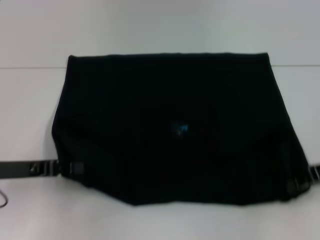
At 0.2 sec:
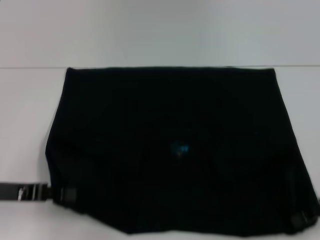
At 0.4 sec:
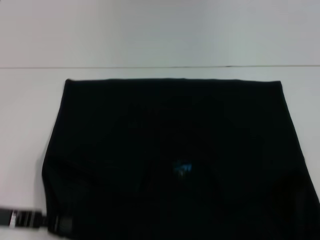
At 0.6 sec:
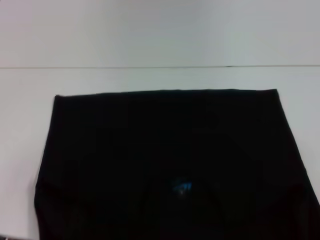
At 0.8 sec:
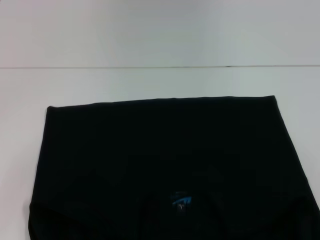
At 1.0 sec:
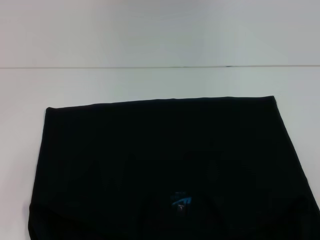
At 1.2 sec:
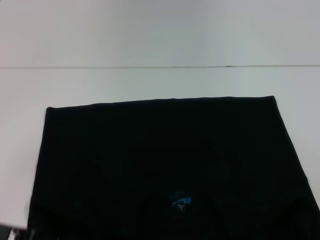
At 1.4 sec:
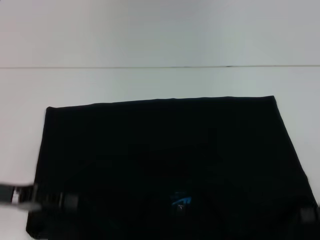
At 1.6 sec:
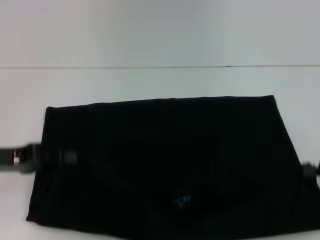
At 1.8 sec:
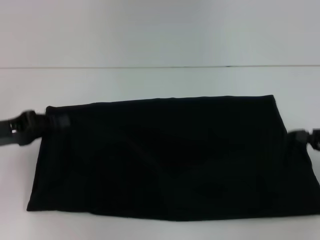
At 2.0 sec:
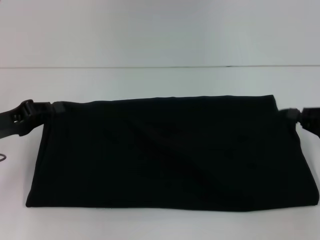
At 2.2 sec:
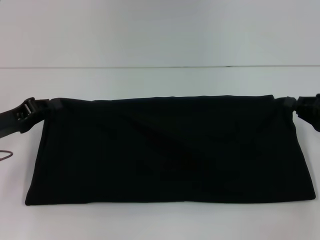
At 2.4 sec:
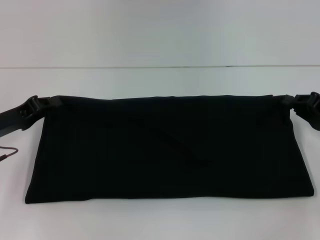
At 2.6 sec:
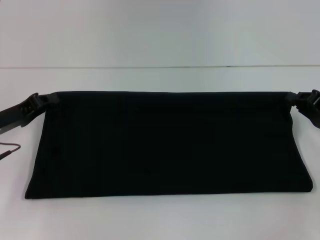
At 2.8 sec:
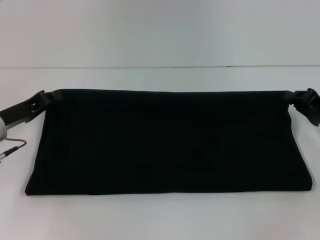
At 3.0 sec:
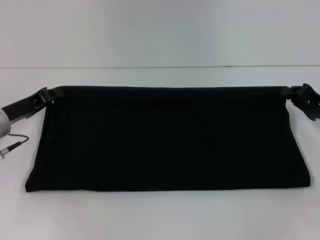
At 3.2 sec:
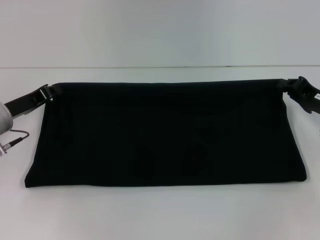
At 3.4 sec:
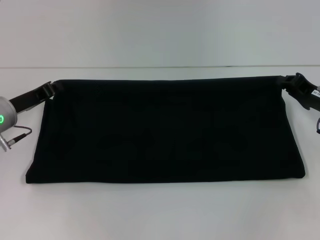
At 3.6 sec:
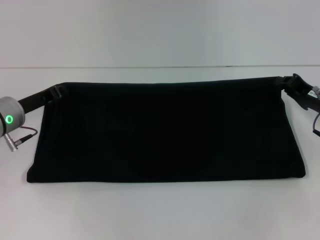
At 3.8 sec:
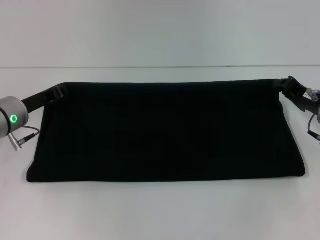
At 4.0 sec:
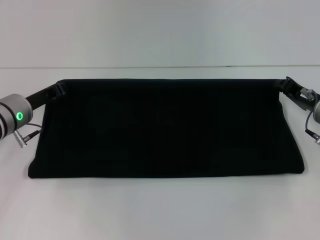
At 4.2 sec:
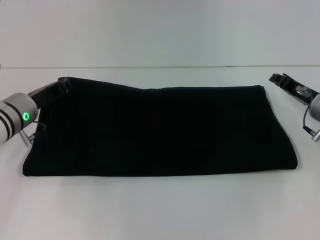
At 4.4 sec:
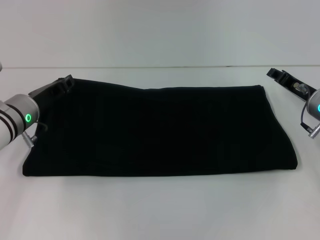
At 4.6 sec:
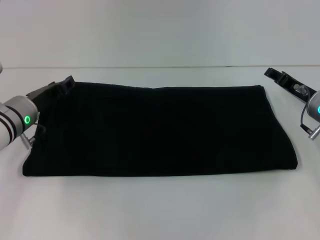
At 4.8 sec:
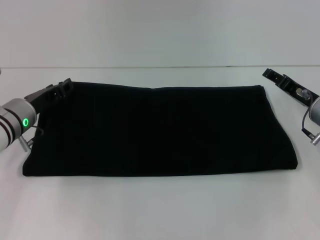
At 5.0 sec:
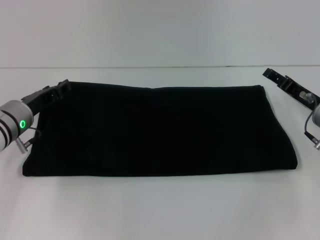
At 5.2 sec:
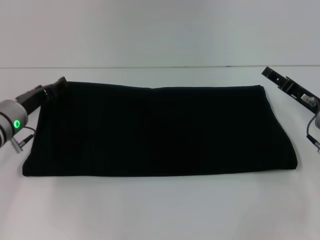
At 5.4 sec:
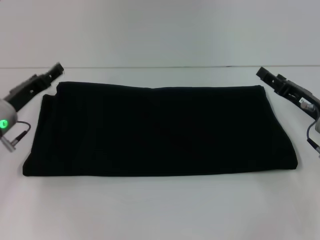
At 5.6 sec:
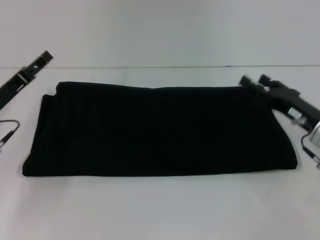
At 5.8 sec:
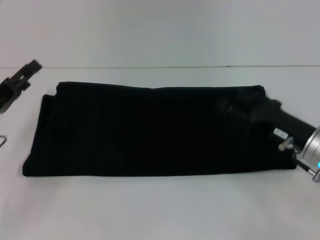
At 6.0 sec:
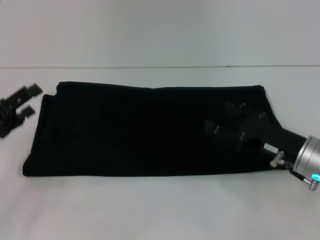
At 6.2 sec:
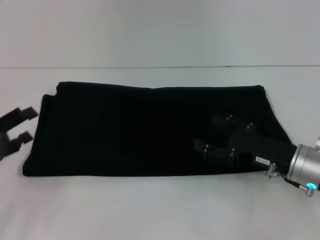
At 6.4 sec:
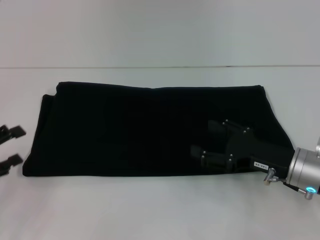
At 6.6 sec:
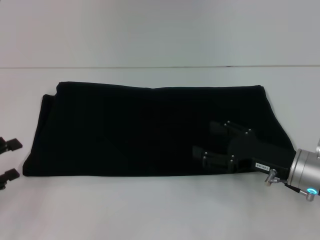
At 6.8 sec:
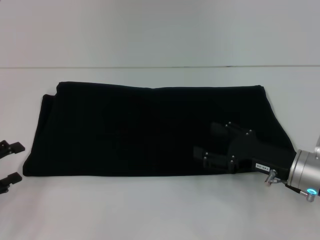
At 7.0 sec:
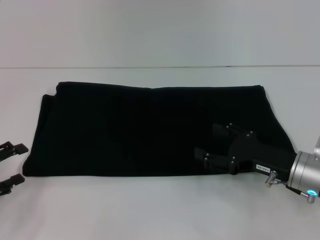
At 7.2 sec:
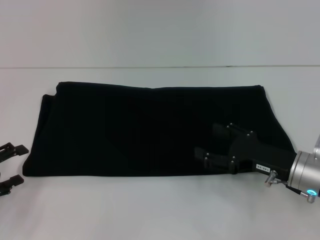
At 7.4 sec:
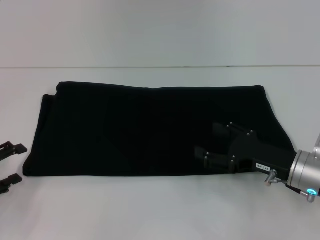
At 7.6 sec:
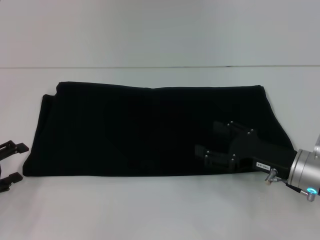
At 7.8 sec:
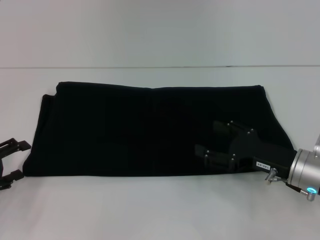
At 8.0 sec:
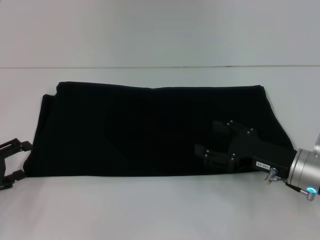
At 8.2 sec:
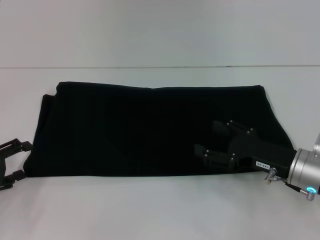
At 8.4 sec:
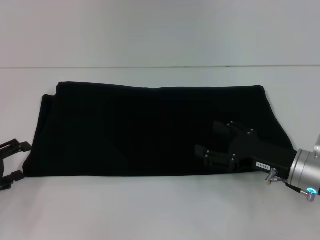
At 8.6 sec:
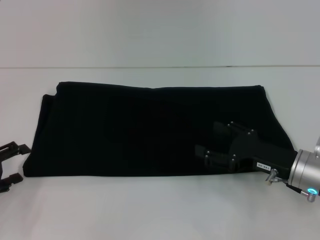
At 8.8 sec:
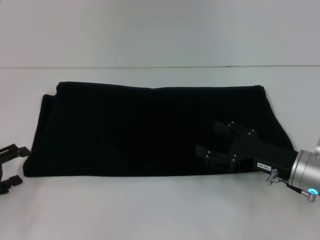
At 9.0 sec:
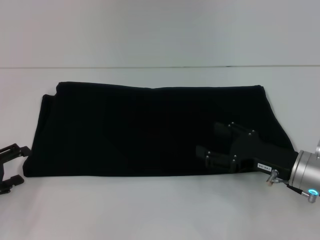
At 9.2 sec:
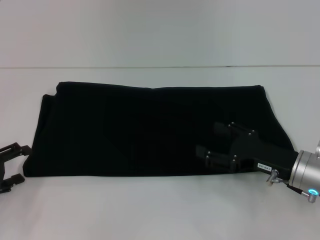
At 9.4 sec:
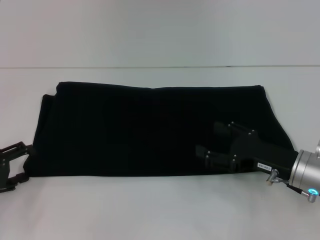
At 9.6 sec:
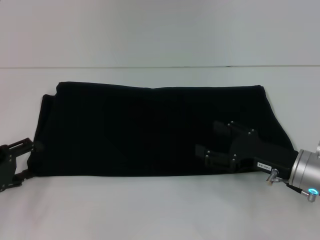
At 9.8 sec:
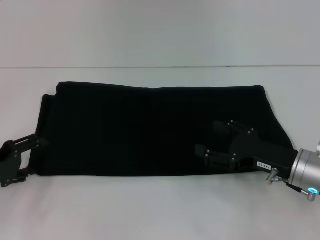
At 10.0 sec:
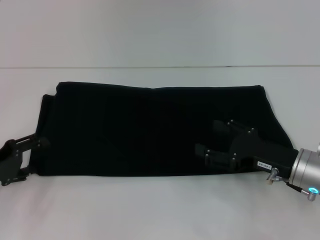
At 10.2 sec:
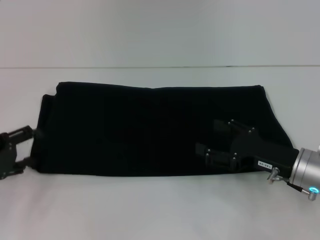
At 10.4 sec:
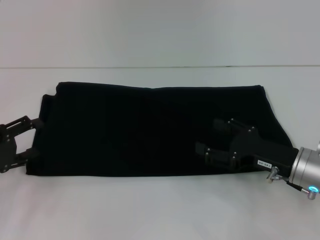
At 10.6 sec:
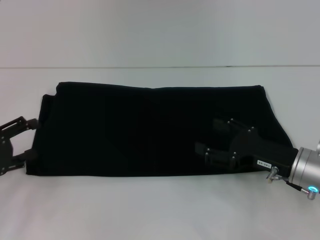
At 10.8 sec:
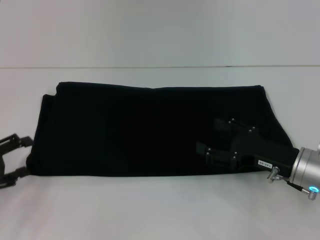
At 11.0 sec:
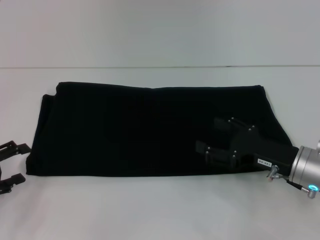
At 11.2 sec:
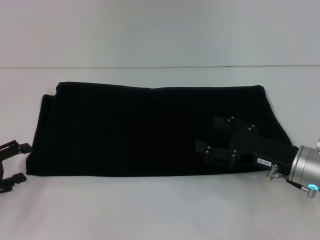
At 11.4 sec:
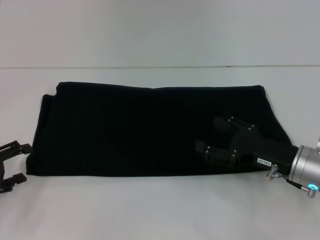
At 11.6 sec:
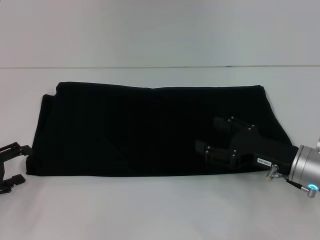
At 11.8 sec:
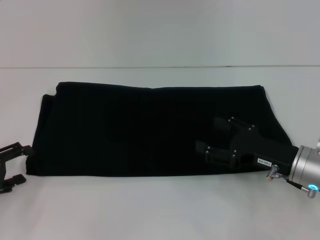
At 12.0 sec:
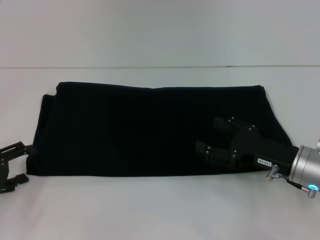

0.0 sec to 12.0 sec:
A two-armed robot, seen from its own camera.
Step, 1.0 sec to 4.8 sec: Fold the clothes with your right hand.
0.0 sec to 1.6 sec: The right gripper is displaced to the right and backward by about 10 cm.
1.6 sec to 3.0 sec: The left gripper heads forward, covering about 5 cm. Meanwhile the right gripper moves forward and to the left, some 10 cm.
3.0 sec to 4.4 sec: The right gripper shifts by roughly 5 cm; the left gripper moves roughly 5 cm.
4.4 sec to 6.0 sec: The left gripper is displaced backward and to the left by roughly 15 cm, and opens; the right gripper heads backward, covering about 10 cm, and opens.
6.0 sec to 7.6 sec: The left gripper shifts by about 5 cm.
7.6 sec to 9.0 sec: Neither gripper changes place.
9.0 sec to 12.0 sec: The grippers make only small movements.

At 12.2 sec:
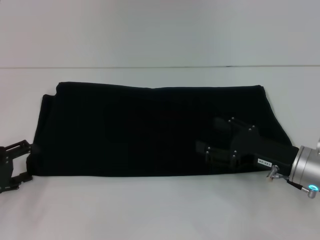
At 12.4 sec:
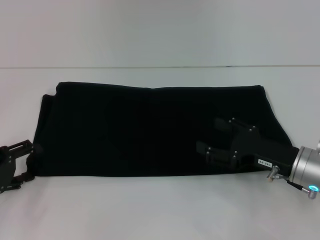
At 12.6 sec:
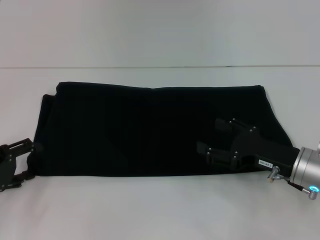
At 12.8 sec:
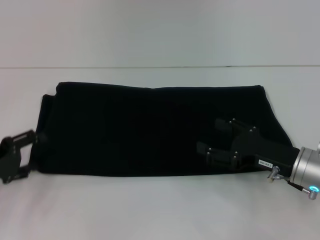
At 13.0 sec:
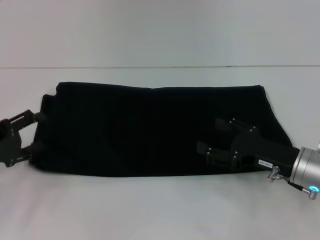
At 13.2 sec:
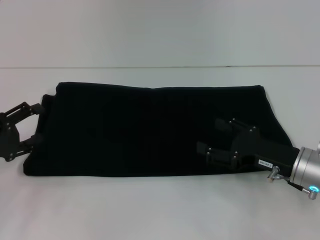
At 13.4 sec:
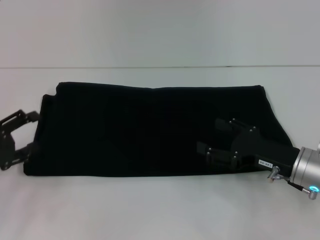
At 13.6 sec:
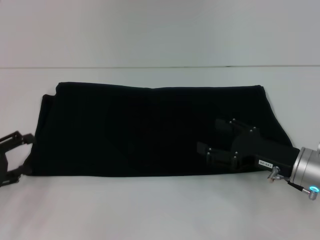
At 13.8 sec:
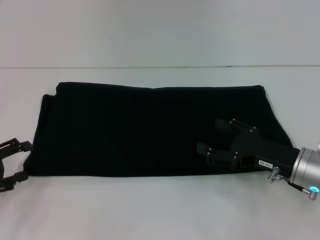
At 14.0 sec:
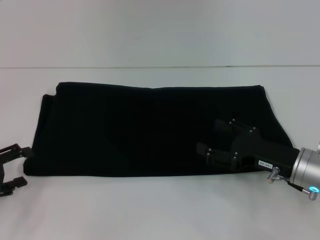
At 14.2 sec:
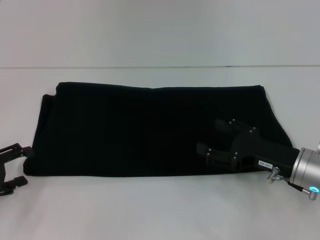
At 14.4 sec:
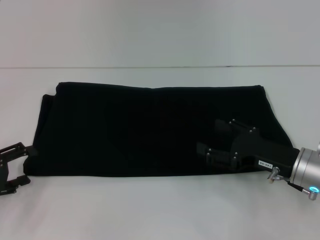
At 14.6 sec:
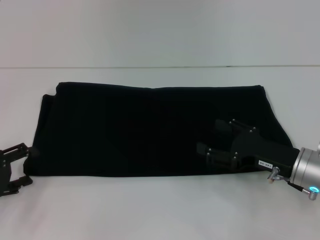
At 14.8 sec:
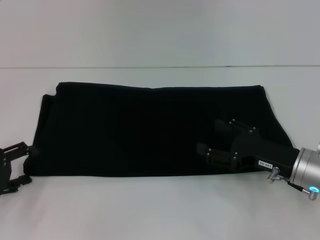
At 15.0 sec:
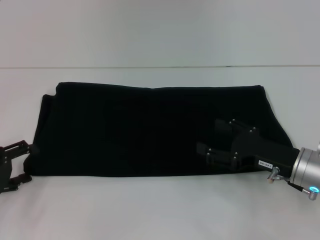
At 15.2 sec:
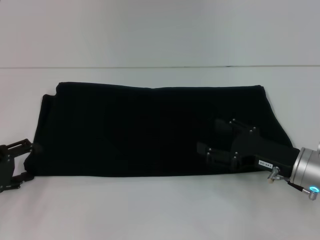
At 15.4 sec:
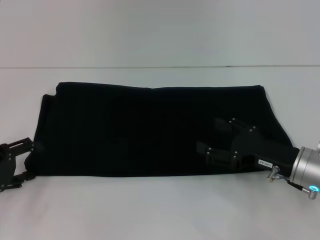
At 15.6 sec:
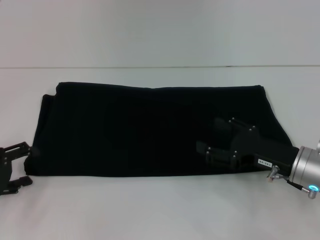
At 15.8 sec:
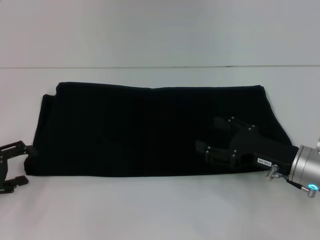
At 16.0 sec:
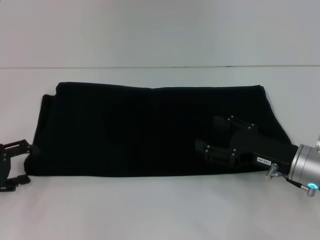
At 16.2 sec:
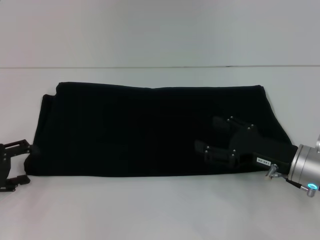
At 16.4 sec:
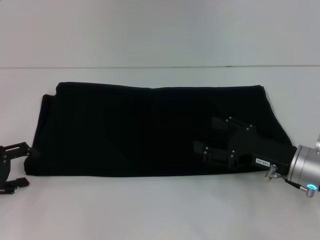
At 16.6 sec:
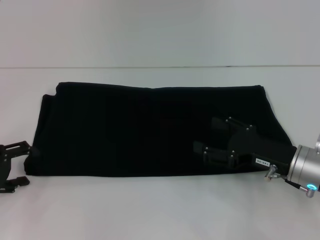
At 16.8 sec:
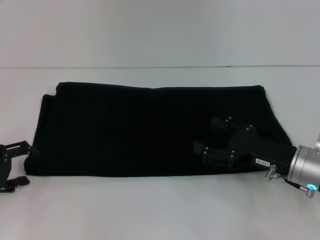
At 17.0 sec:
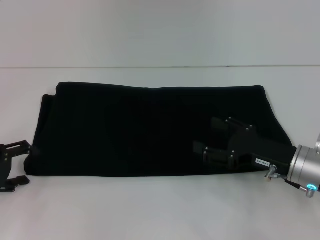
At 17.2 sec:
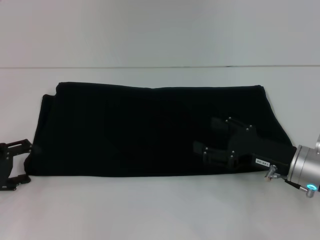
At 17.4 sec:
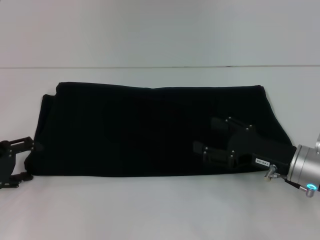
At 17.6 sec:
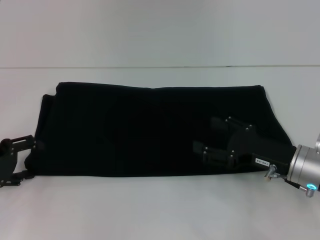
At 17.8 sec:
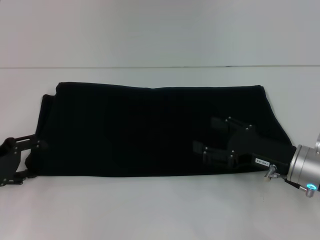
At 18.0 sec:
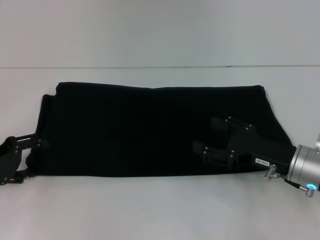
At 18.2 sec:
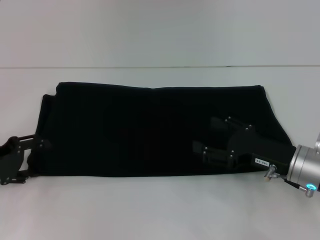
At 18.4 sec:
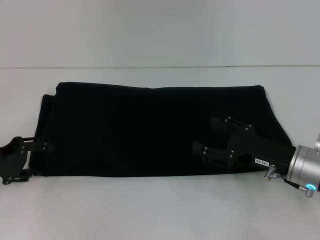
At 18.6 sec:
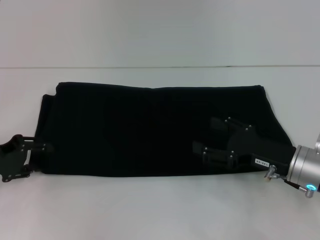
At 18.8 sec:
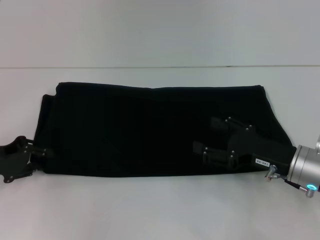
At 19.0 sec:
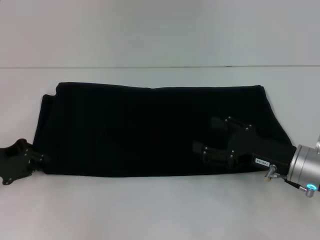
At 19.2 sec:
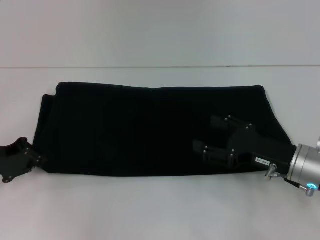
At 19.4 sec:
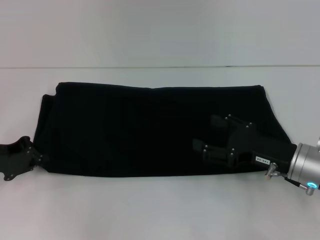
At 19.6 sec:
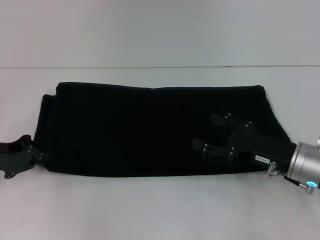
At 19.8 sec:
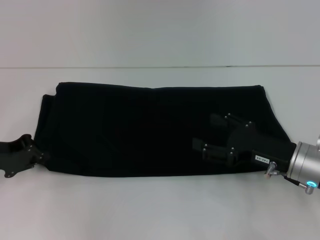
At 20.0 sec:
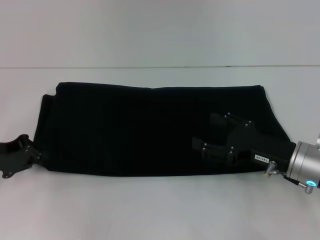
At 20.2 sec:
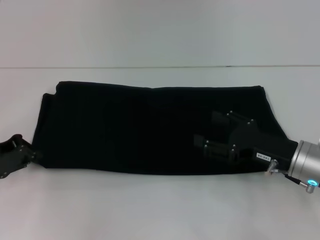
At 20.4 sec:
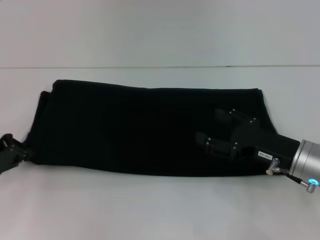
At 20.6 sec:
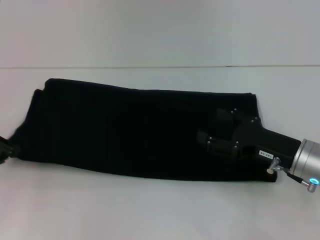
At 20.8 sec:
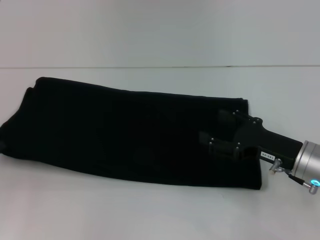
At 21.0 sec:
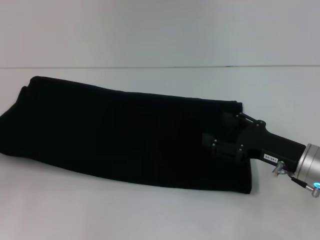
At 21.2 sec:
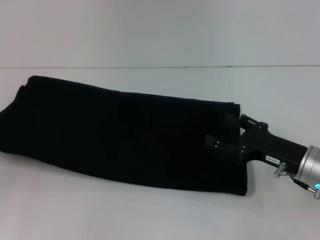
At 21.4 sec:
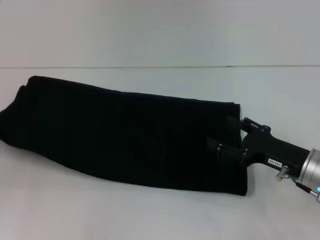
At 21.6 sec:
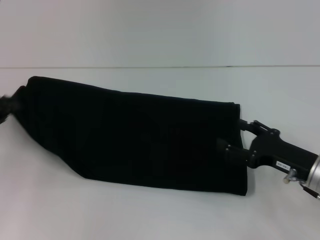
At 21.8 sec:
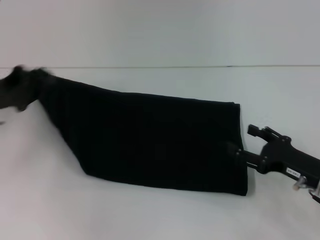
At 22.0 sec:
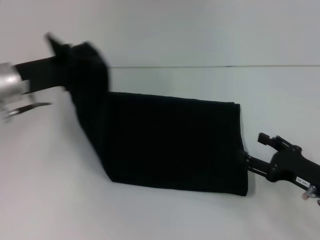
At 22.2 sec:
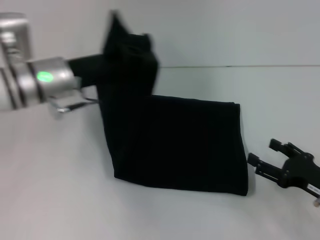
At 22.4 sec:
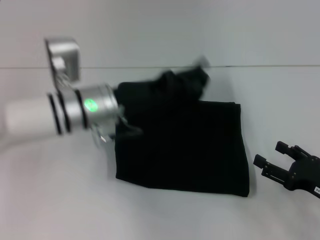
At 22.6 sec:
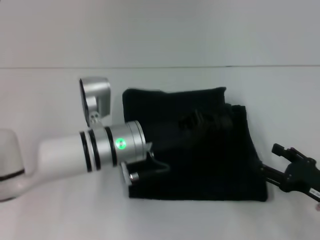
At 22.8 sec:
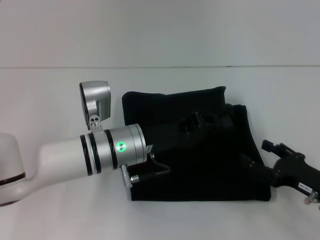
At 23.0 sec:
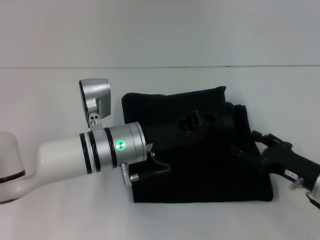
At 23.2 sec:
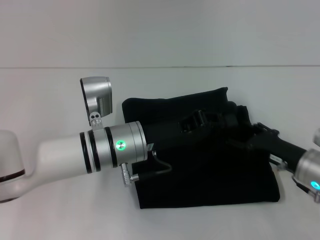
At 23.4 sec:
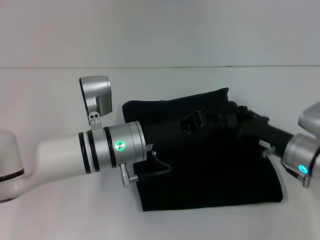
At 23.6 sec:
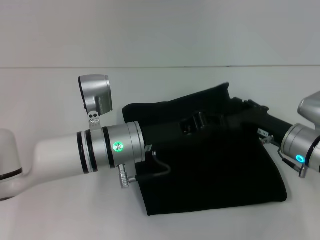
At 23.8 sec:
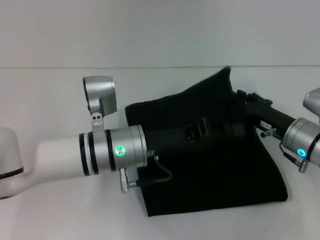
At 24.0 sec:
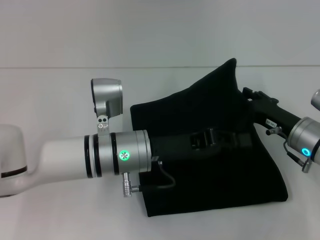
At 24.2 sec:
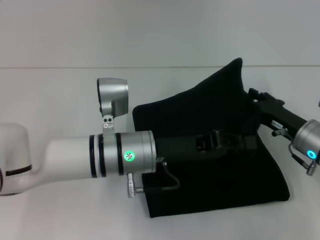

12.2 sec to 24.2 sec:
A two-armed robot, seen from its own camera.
12.2 sec to 18.2 sec: The grippers stay close to where they were, moving slightly.
18.2 sec to 19.8 sec: The left gripper closes.
19.8 sec to 21.2 sec: The left gripper travels to the left by some 5 cm.
21.2 sec to 22.6 sec: The left gripper travels to the right by roughly 30 cm. The right gripper heads backward and to the right, covering some 10 cm.
22.6 sec to 24.2 sec: The right gripper heads forward and to the left, covering about 10 cm.
